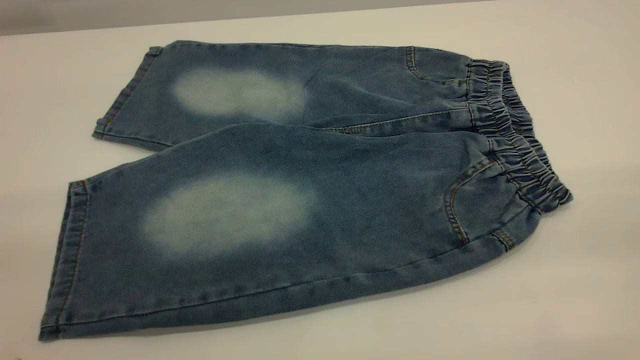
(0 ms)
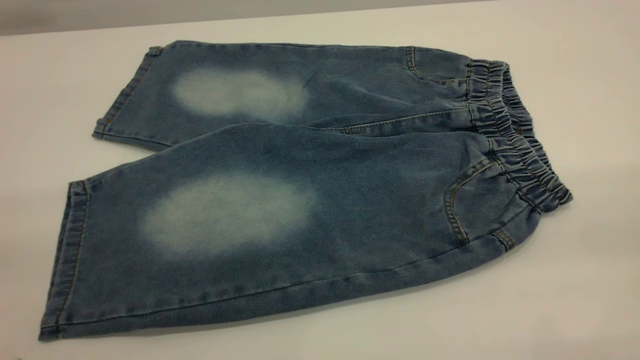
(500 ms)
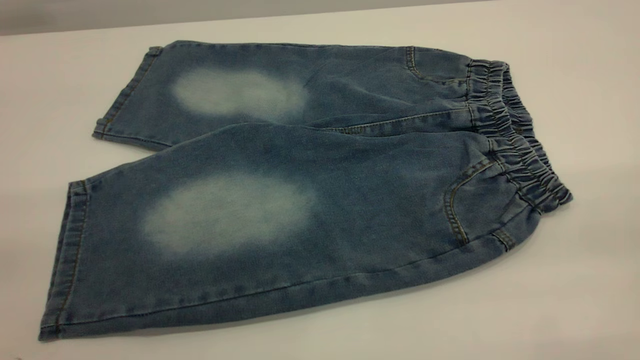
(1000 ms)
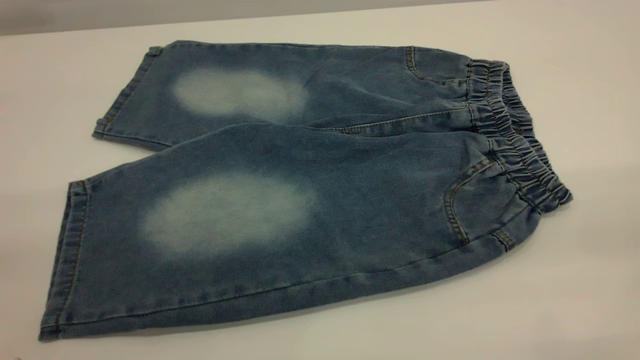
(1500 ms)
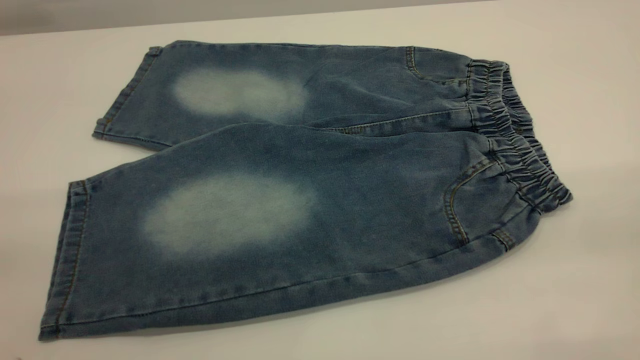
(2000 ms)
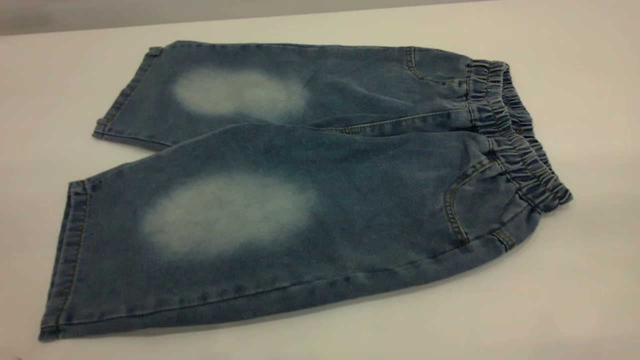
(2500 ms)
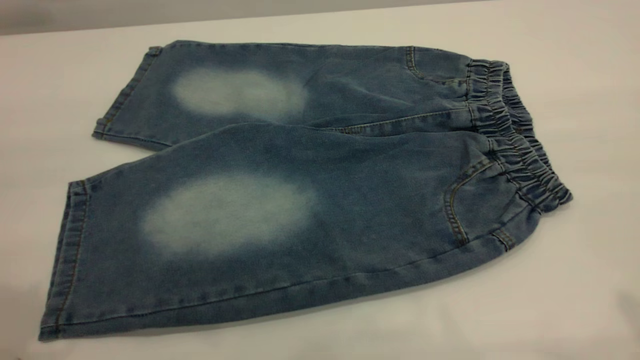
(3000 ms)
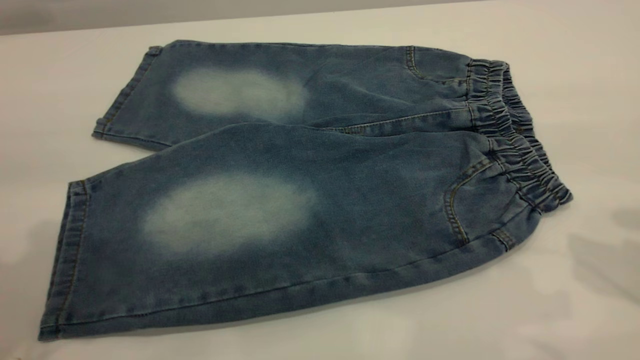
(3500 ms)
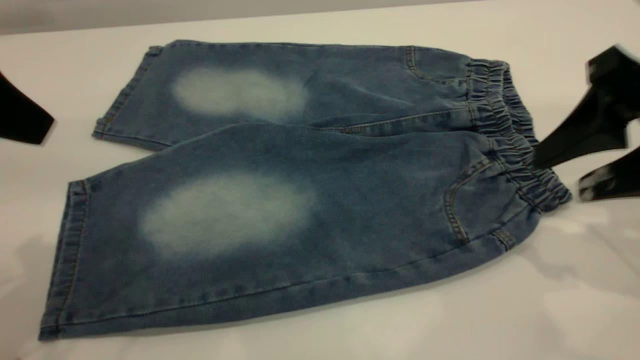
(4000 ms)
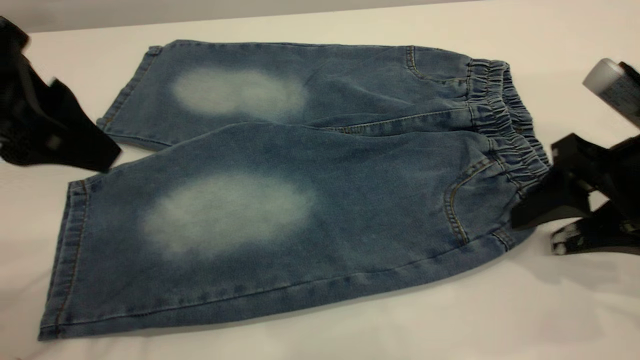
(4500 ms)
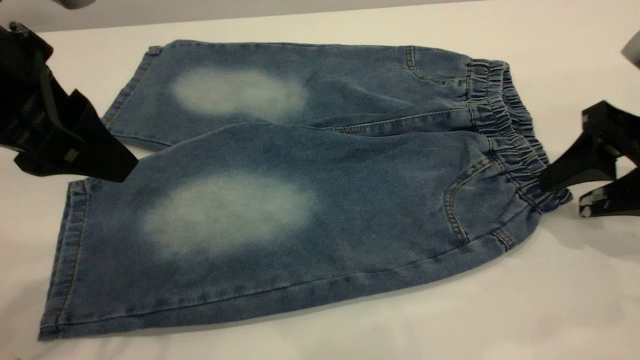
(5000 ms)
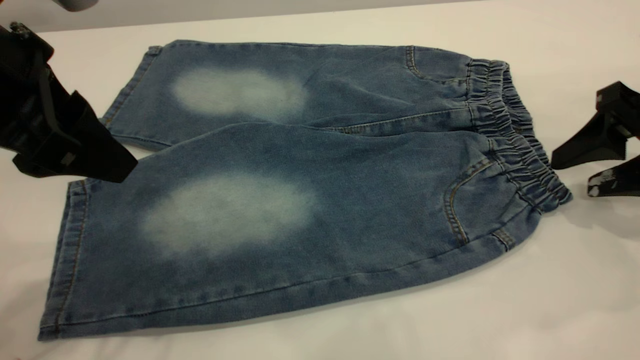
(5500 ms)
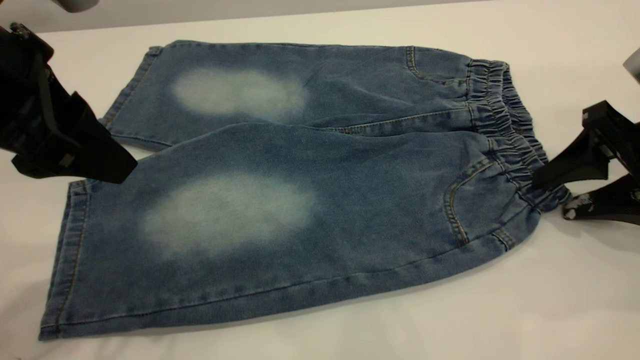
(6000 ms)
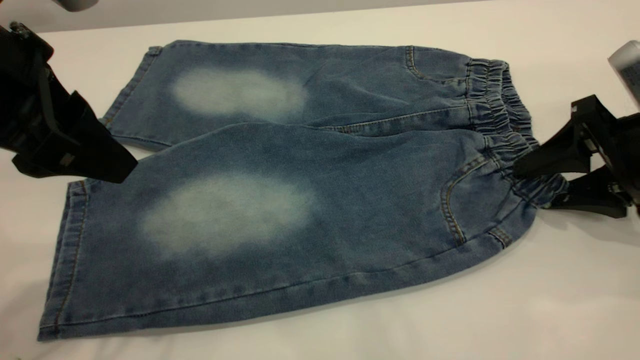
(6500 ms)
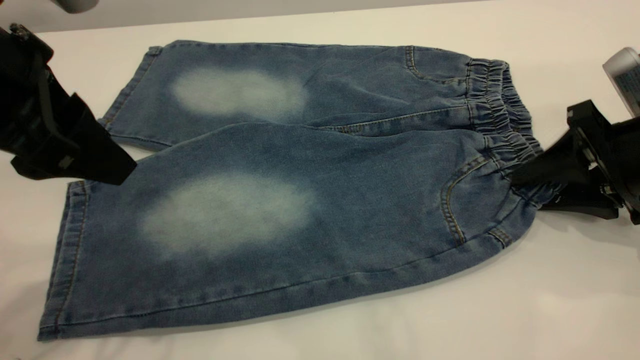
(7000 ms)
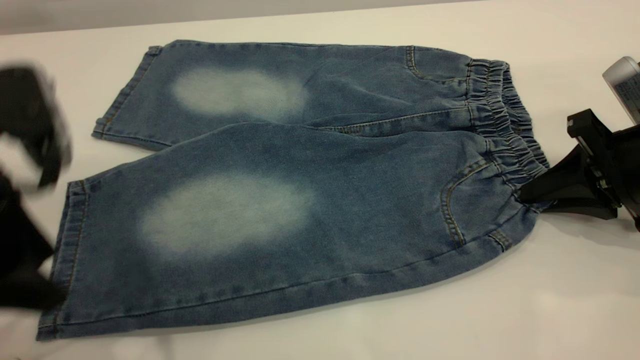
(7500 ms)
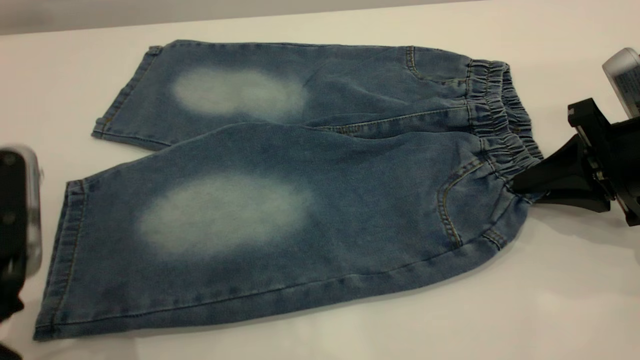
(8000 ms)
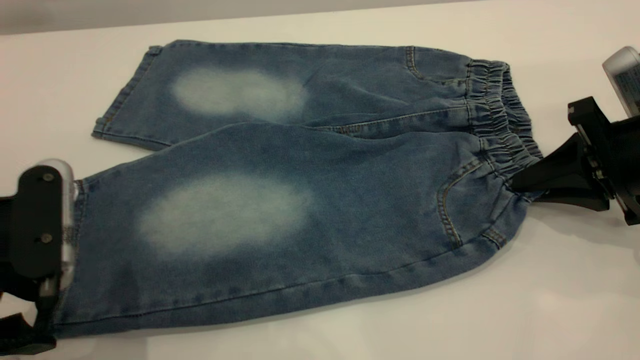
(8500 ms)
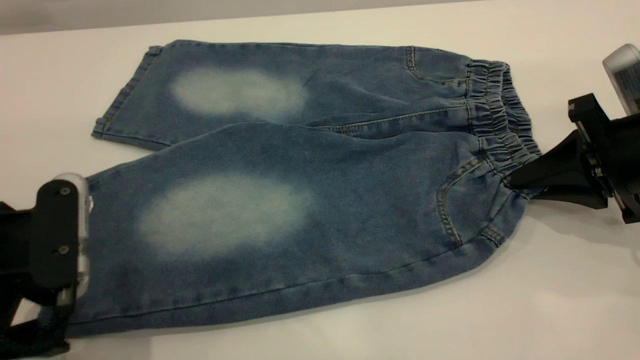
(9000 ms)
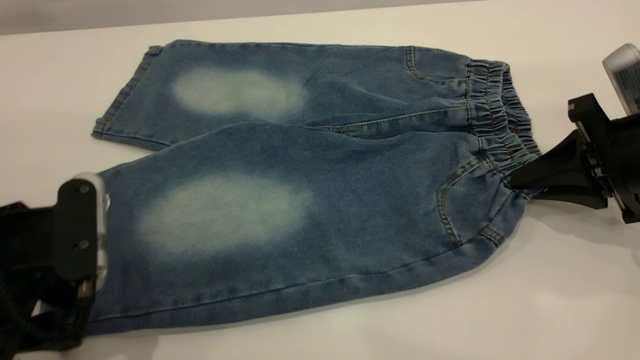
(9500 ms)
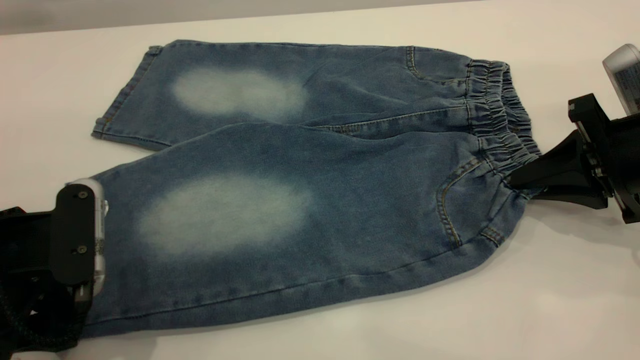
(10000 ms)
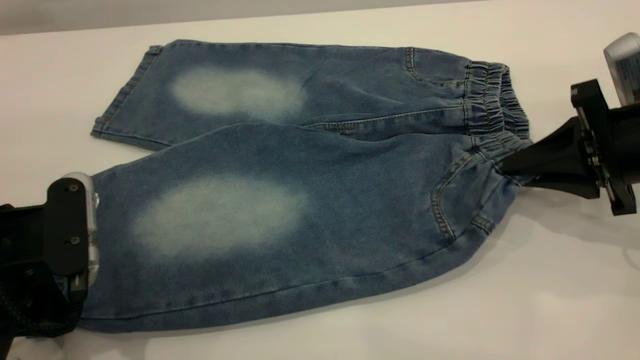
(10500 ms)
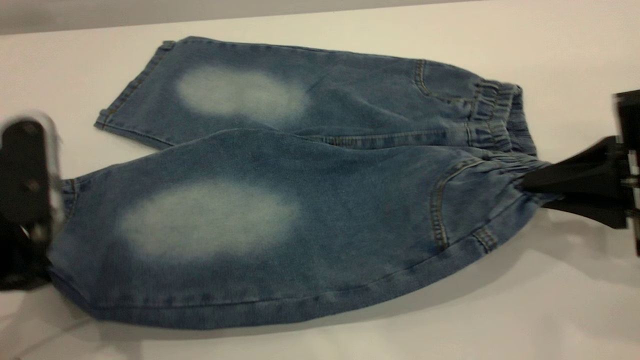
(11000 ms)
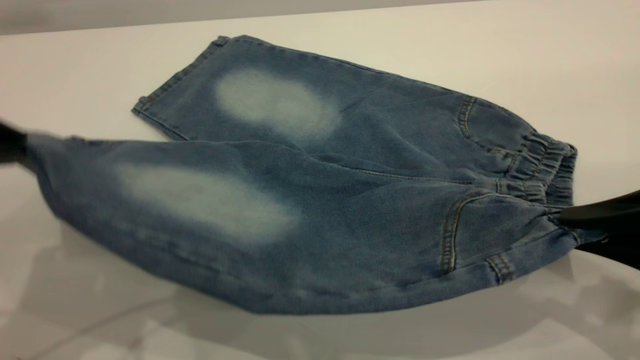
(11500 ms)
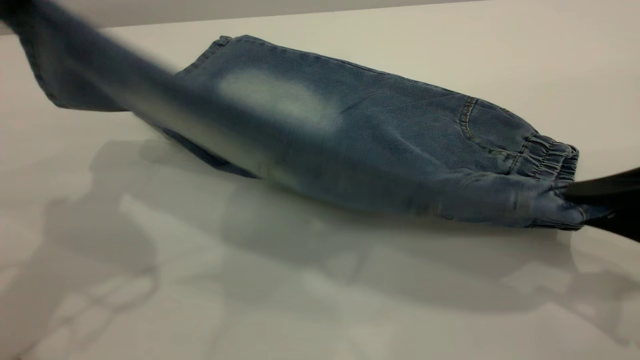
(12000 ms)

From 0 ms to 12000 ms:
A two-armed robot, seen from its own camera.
From 2000 ms to 4000 ms: The right gripper heads forward and downward, covering roughly 30 cm, while the left gripper moves forward, roughly 20 cm.
From 4000 ms to 6000 ms: The left gripper moves some 5 cm; the right gripper goes some 10 cm downward.
From 6000 ms to 8000 ms: The right gripper closes its fingers. The left gripper moves backward and downward, about 10 cm.
From 8000 ms to 10000 ms: The left gripper moves approximately 5 cm, and closes.
From 10000 ms to 12000 ms: The right gripper travels backward by about 10 cm; the left gripper moves upward and forward, roughly 15 cm, and closes up.

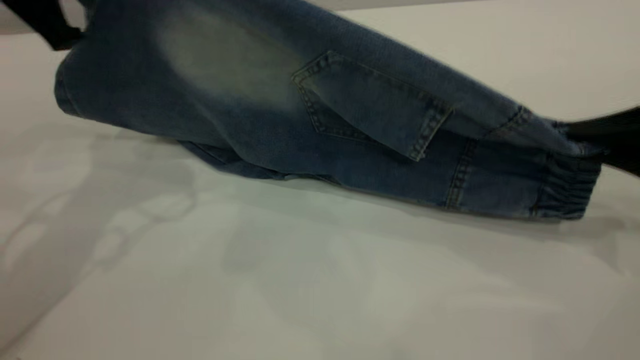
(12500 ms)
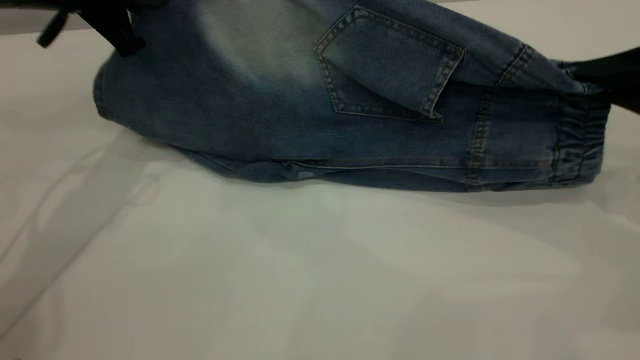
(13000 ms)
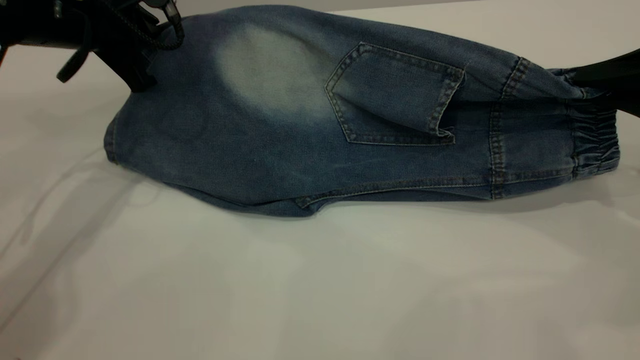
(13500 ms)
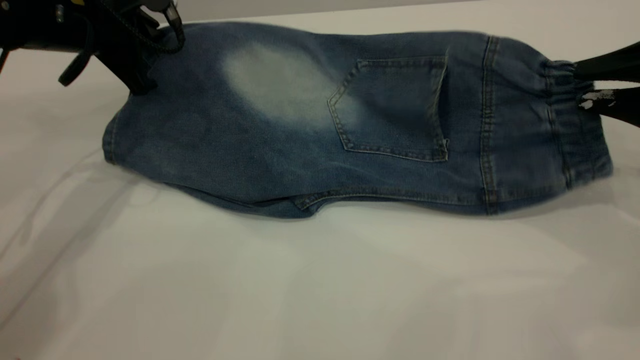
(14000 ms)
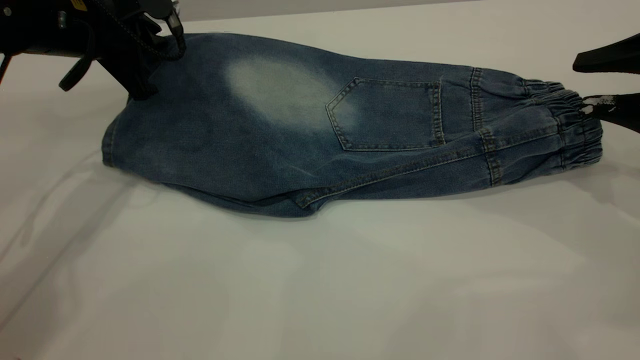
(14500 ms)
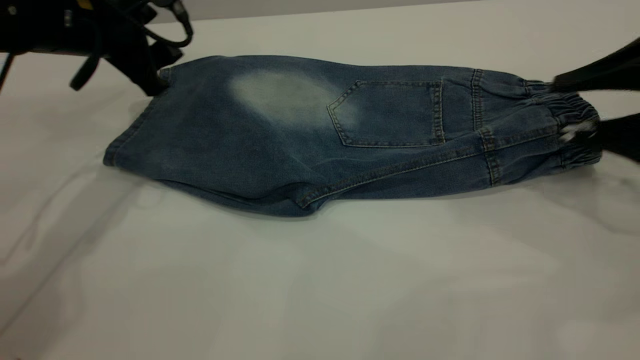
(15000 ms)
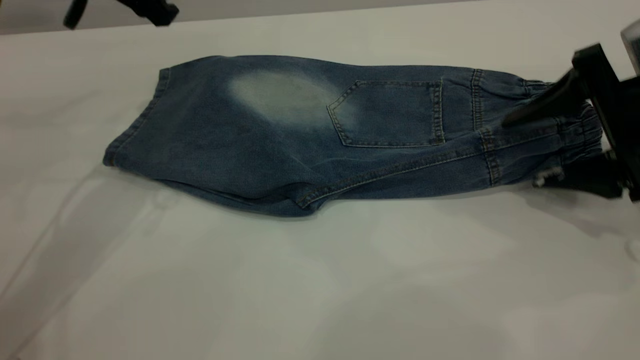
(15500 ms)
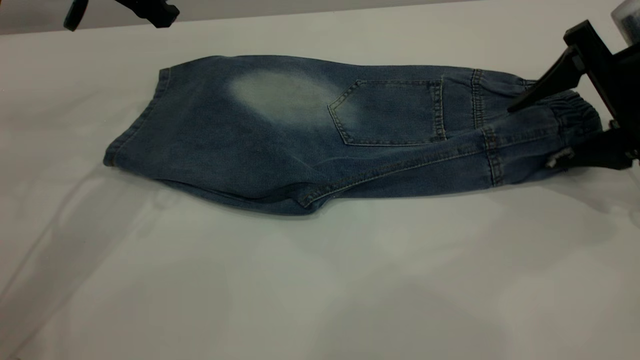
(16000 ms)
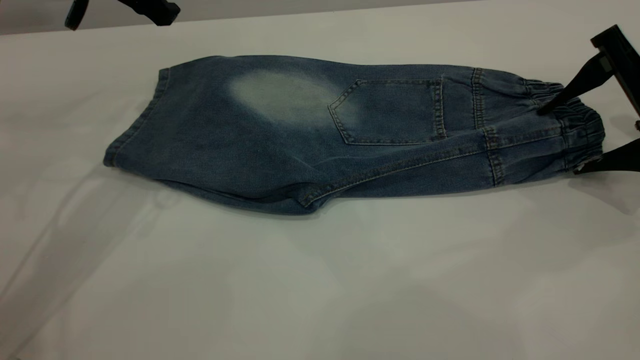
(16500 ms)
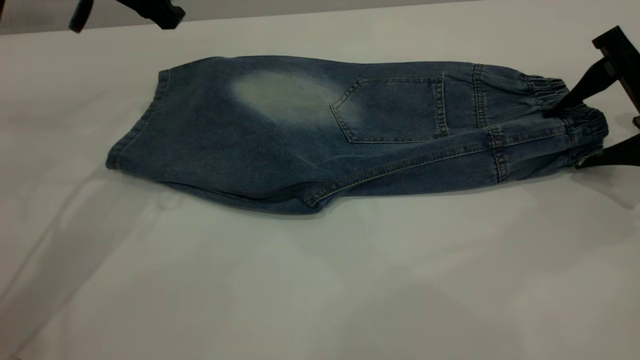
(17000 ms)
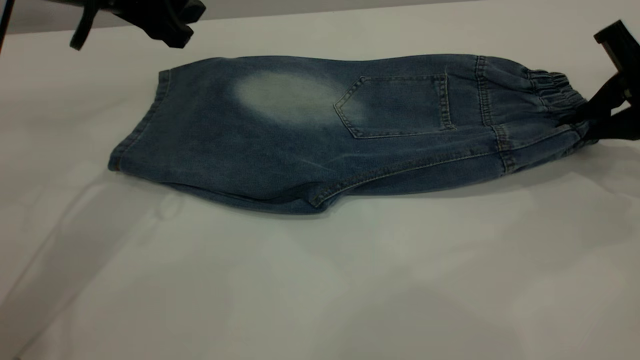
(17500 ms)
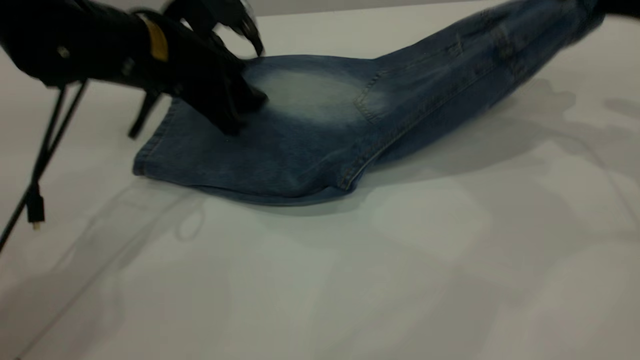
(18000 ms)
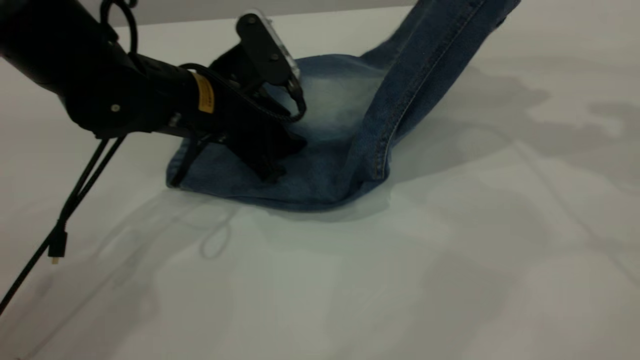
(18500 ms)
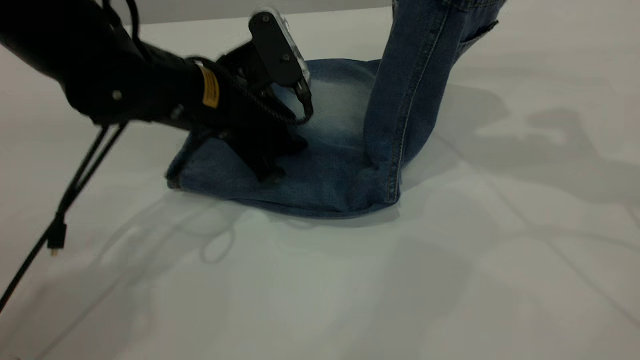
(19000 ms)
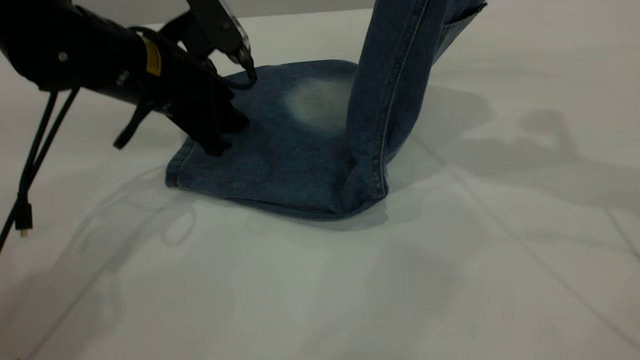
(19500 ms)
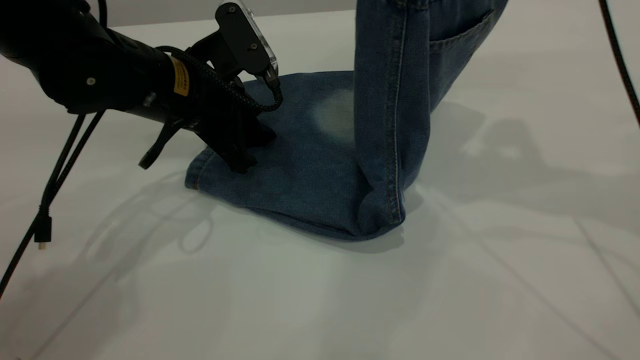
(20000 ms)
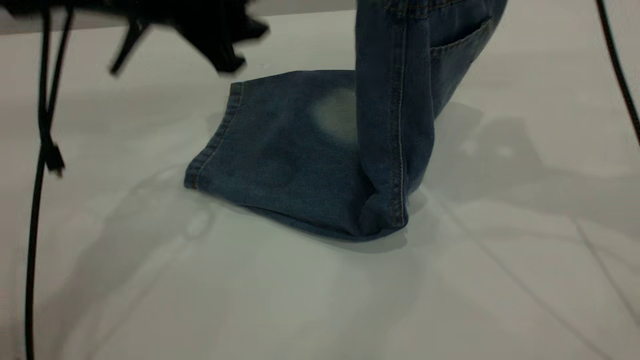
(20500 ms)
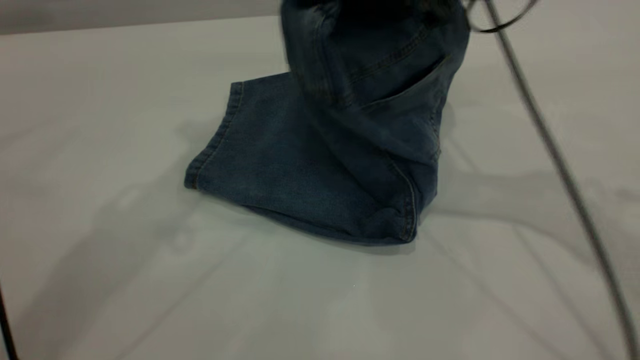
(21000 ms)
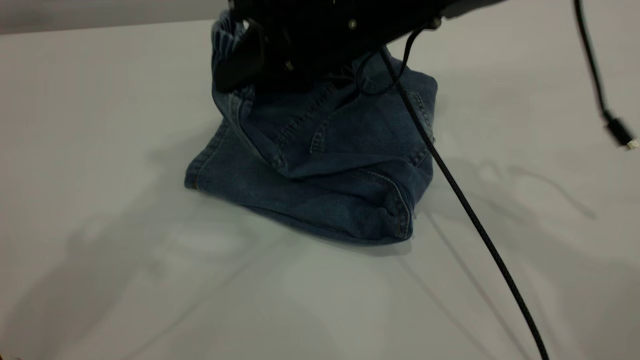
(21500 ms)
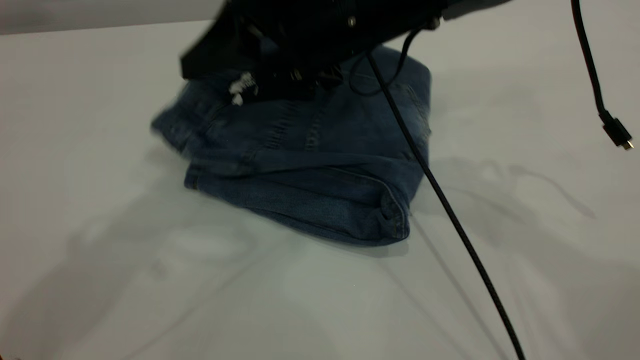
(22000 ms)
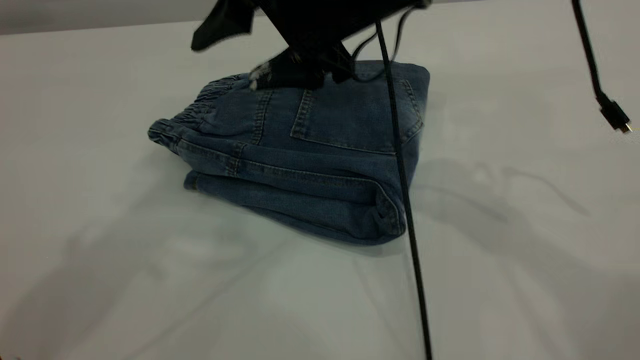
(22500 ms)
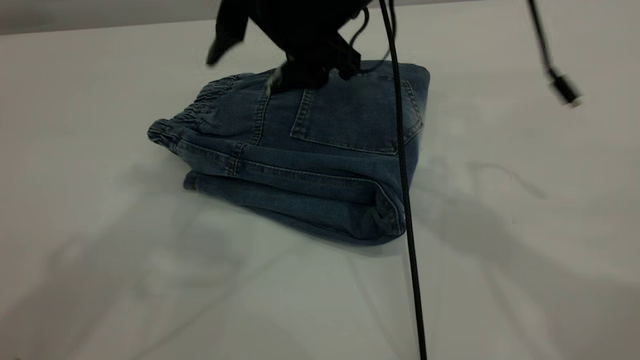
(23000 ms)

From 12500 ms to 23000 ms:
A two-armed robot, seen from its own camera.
Step, from 12500 ms to 14500 ms: Fold the bottom of the pants upward.
Step, from 15000 ms to 22000 ms: Fold your pants from right to left.
From 12500 ms to 14500 ms: The right gripper heads forward, covering about 5 cm, and opens its fingers. Meanwhile the left gripper moves downward and forward, some 10 cm.
From 14500 ms to 16500 ms: The right gripper opens. The left gripper travels upward by approximately 5 cm, and opens.
From 16500 ms to 19000 ms: The left gripper travels downward and to the right by approximately 15 cm, while the right gripper travels upward and to the left by roughly 20 cm, and closes up.
From 19000 ms to 21000 ms: The left gripper goes roughly 25 cm upward. The right gripper moves to the left, some 15 cm.
From 21000 ms to 23000 ms: The left gripper is displaced upward and backward by some 10 cm, while the right gripper goes about 10 cm to the left, and opens up.
